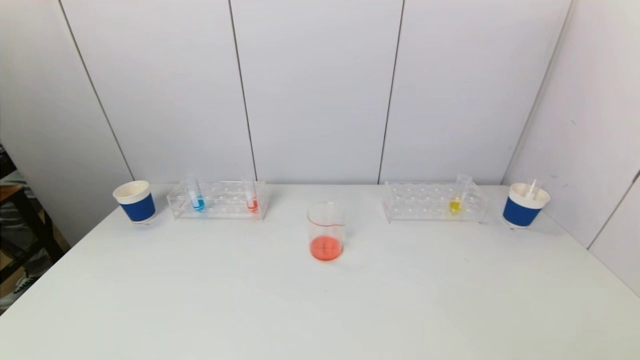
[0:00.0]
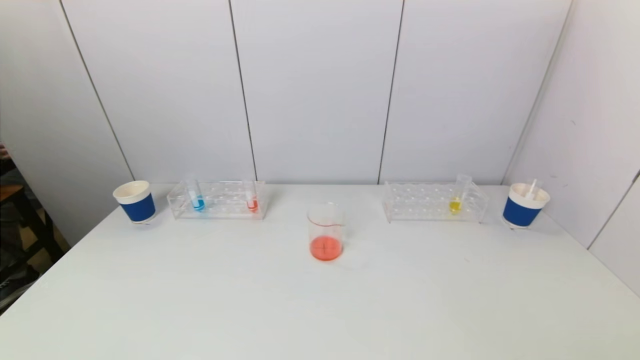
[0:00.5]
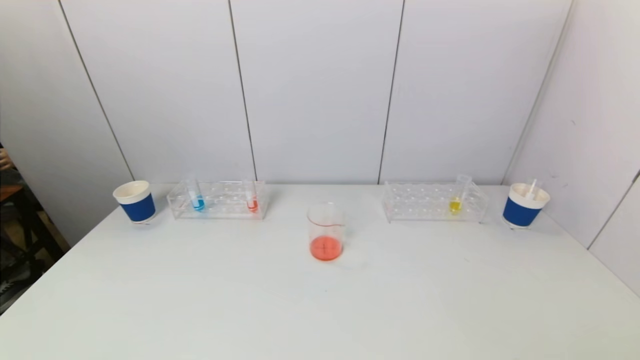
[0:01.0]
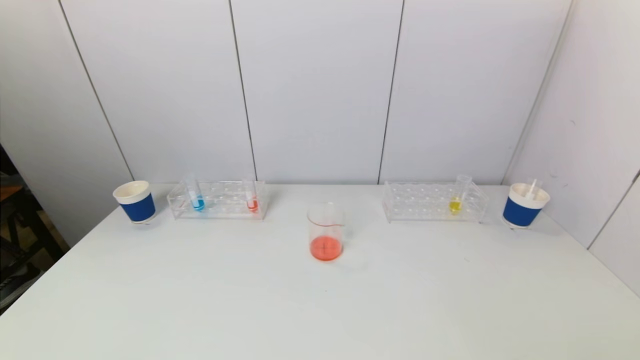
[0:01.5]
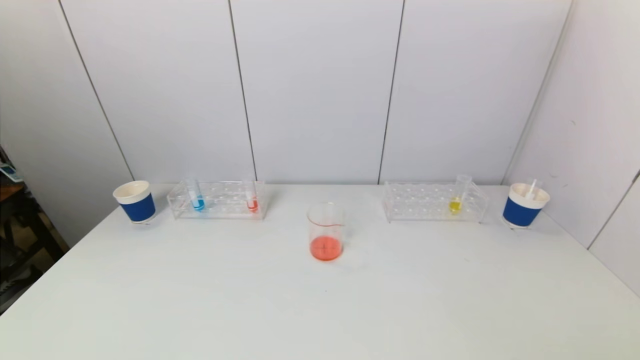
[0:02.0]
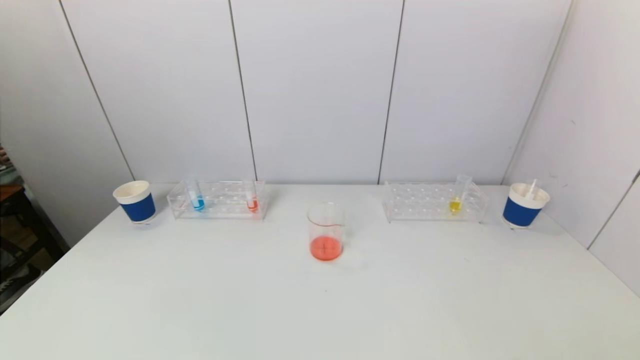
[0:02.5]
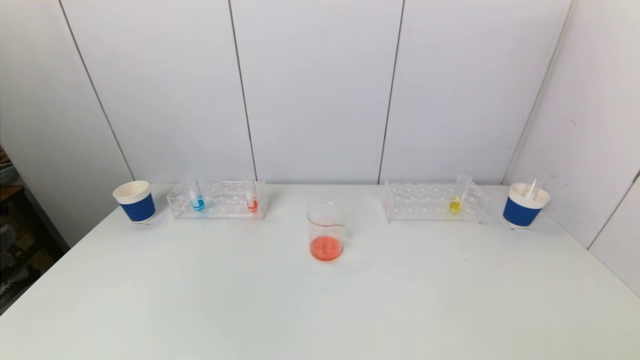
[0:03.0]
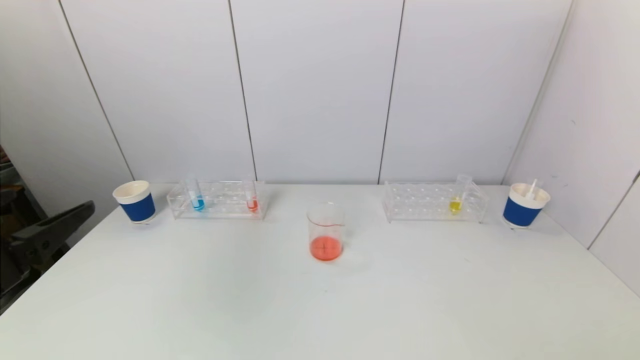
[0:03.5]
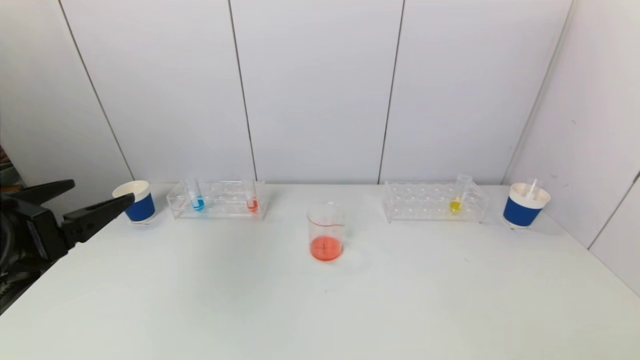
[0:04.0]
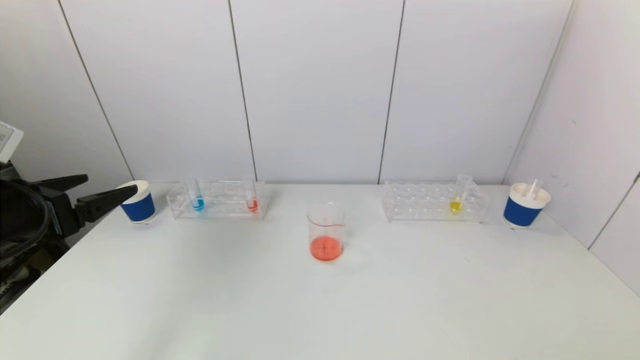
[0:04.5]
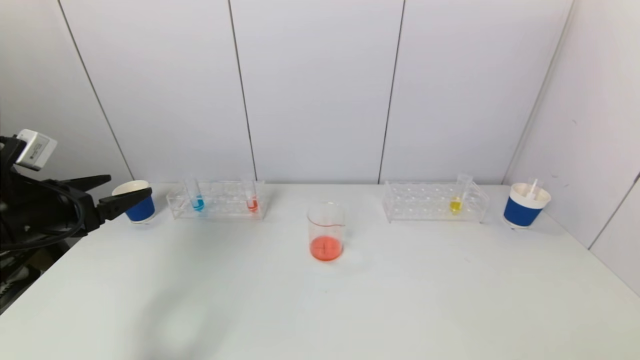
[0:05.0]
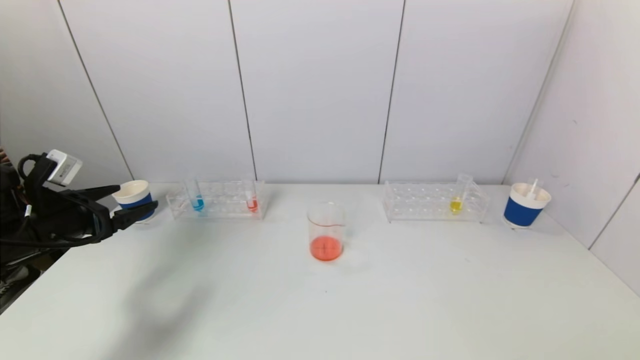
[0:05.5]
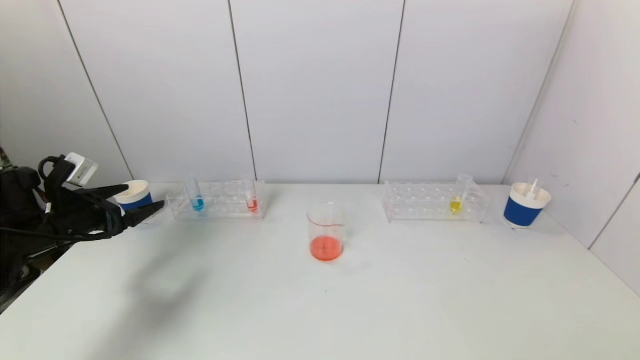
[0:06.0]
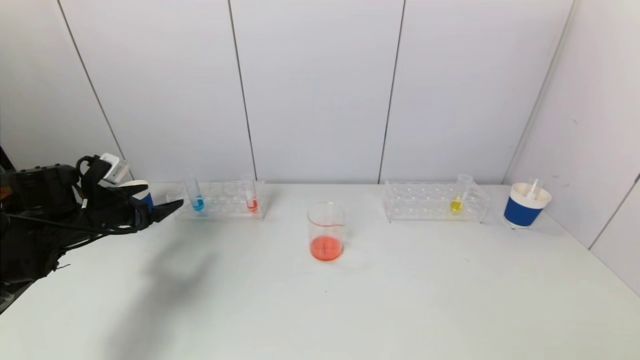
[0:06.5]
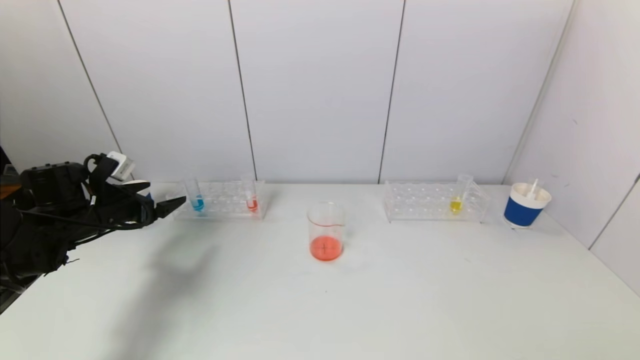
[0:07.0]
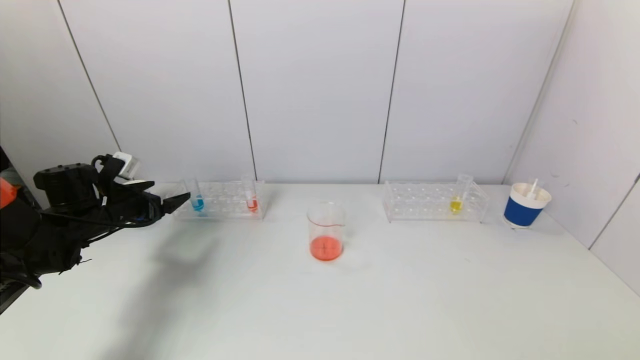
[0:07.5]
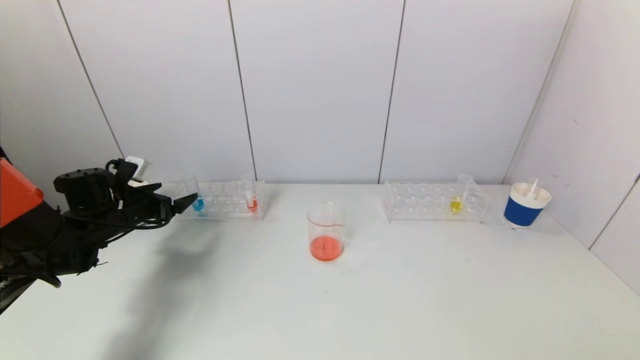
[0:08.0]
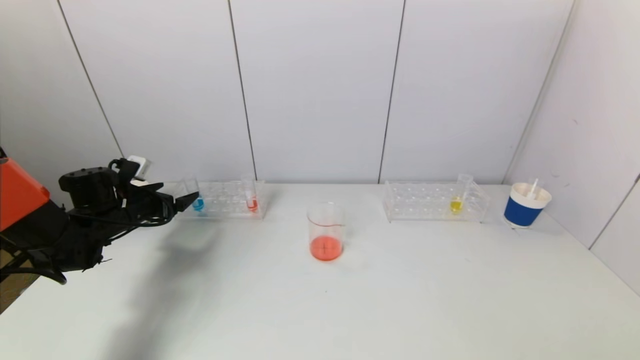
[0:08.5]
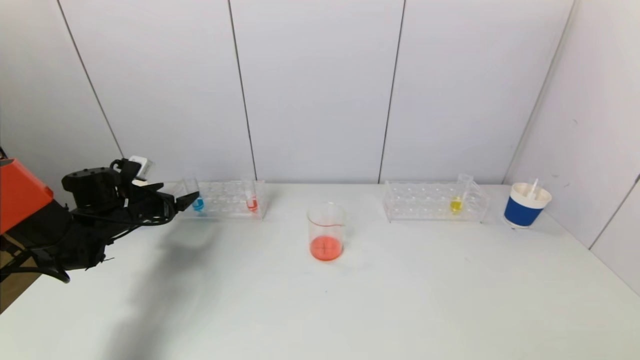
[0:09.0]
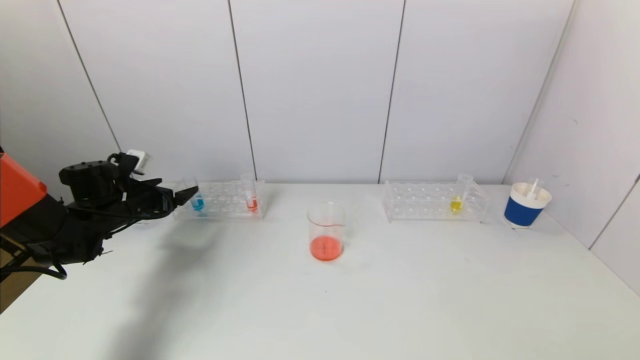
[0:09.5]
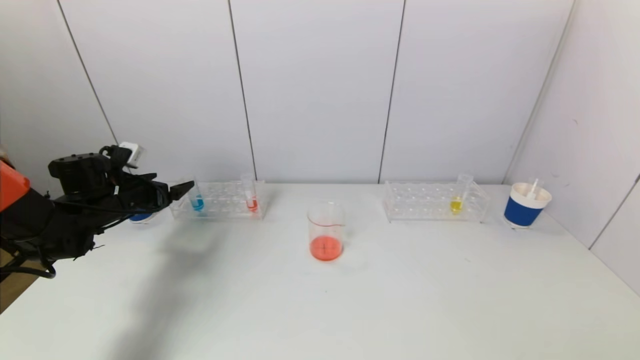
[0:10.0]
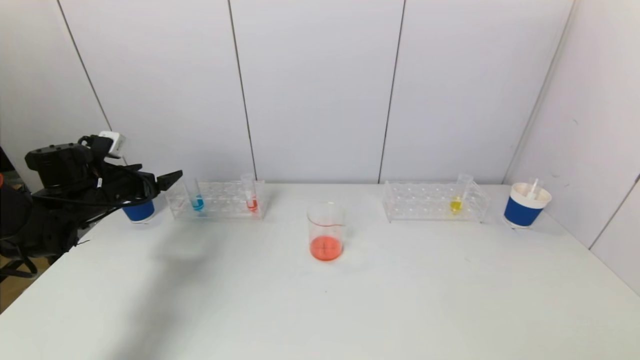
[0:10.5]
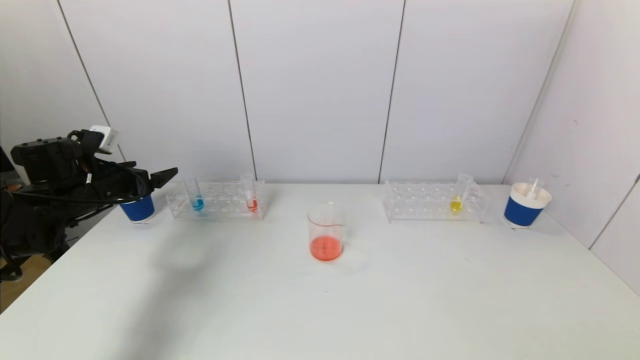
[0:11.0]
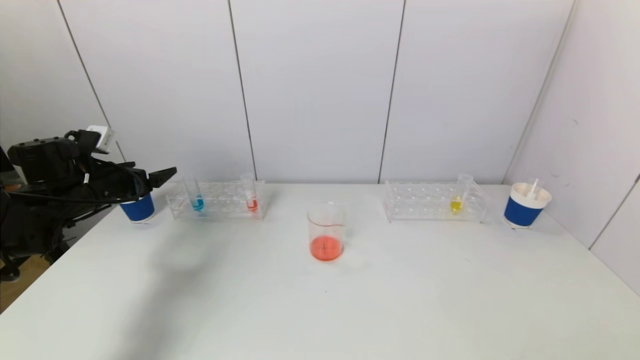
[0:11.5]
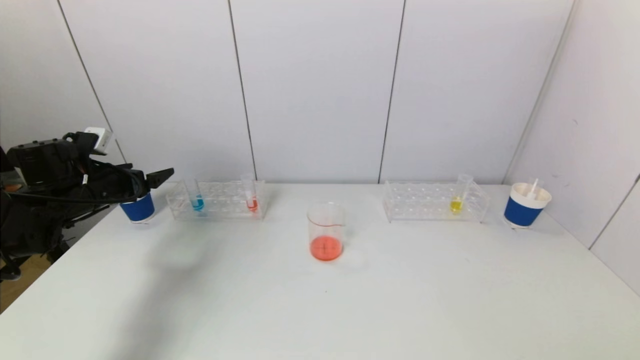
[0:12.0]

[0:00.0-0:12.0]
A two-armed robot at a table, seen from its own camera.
Task of the whole recording: pick up a test tube with pigment on left test tube rack and a test tube with pigment on right test tube rack by grippers and pour them into the beaker.
0:02.0 to 0:04.0: The left gripper shifts approximately 20 cm forward and upward.
0:04.0 to 0:06.0: The left gripper travels forward, downward and to the left by some 20 cm.
0:06.0 to 0:08.0: The left gripper travels forward by about 10 cm.
0:08.0 to 0:10.0: There are only small adjustments of the grippers.
0:10.0 to 0:12.0: There are only small adjustments of the grippers.

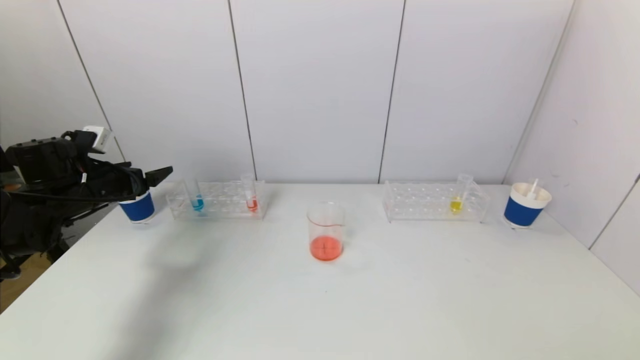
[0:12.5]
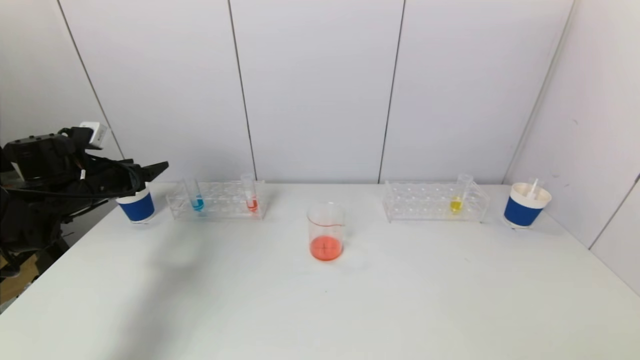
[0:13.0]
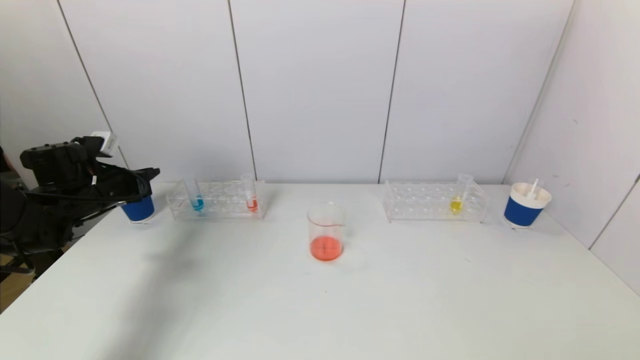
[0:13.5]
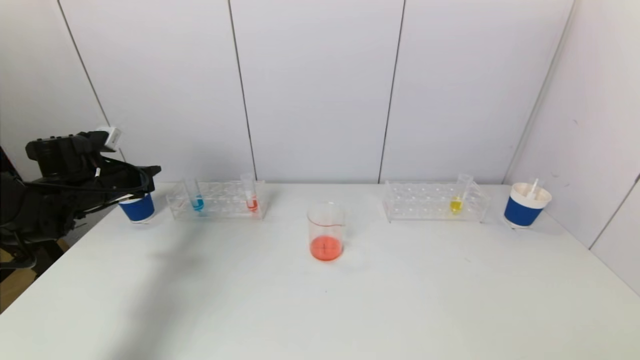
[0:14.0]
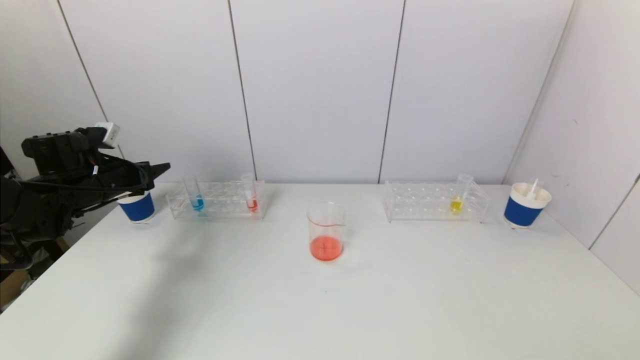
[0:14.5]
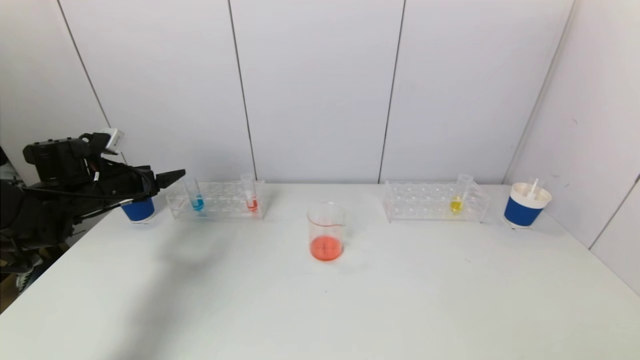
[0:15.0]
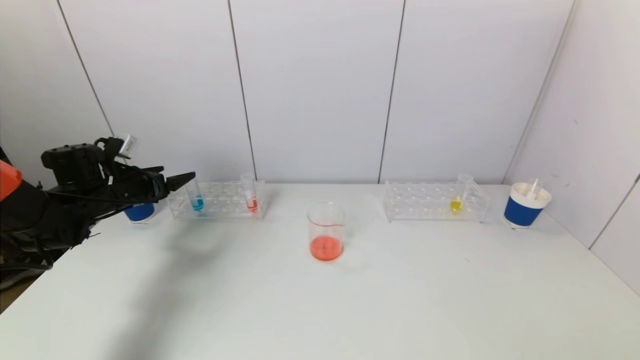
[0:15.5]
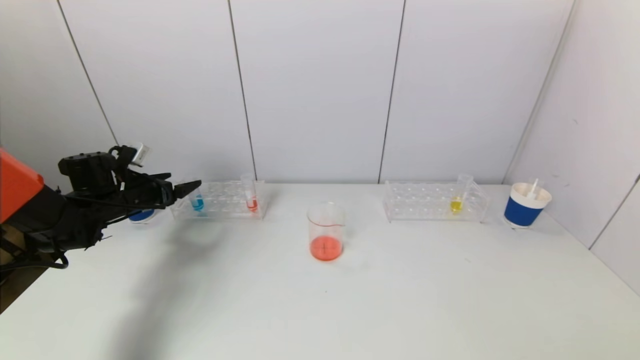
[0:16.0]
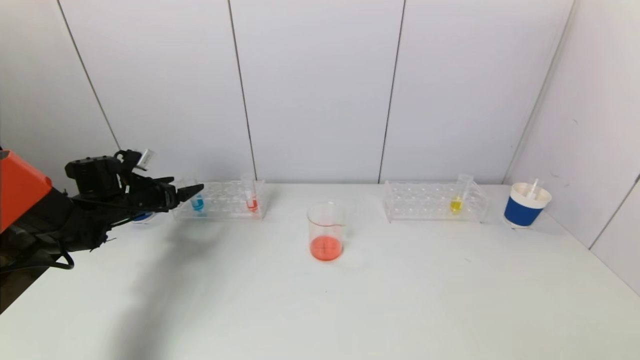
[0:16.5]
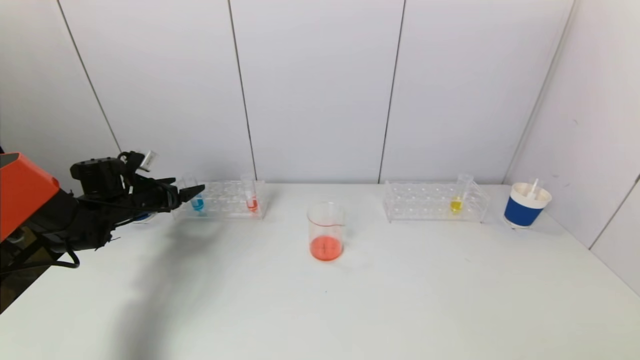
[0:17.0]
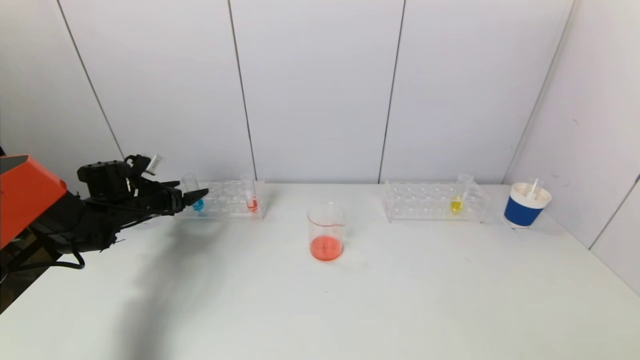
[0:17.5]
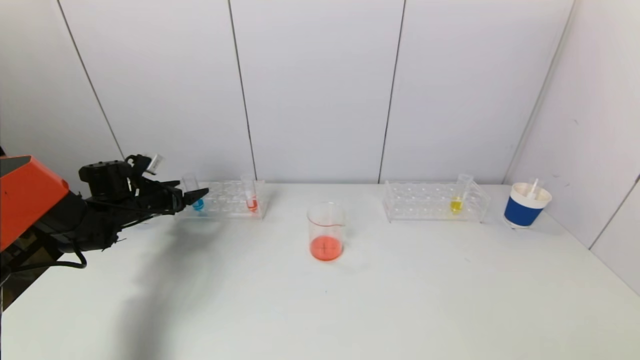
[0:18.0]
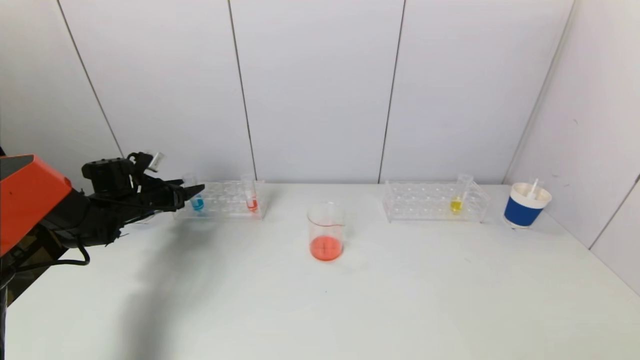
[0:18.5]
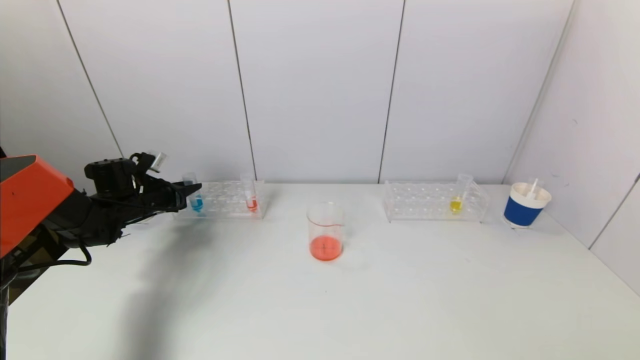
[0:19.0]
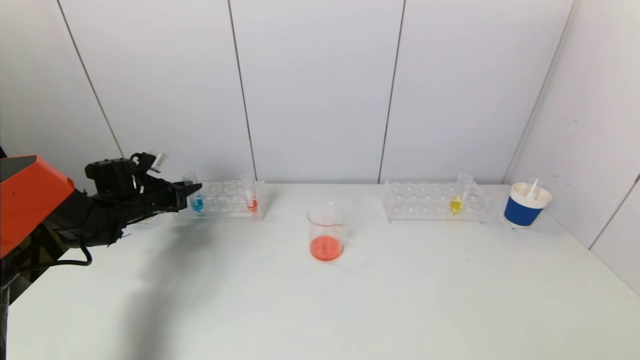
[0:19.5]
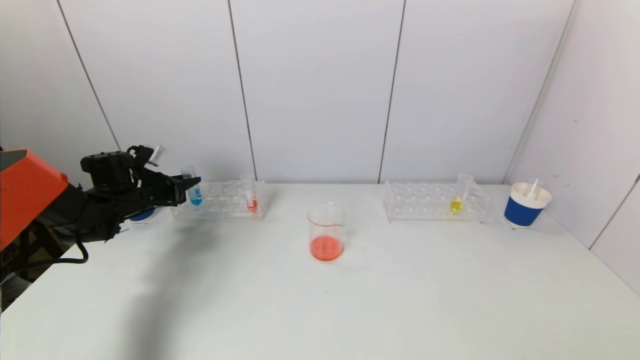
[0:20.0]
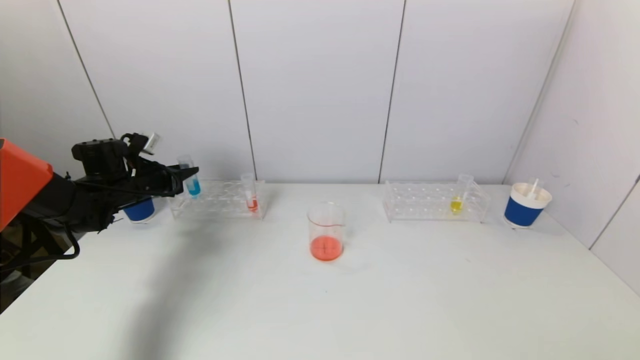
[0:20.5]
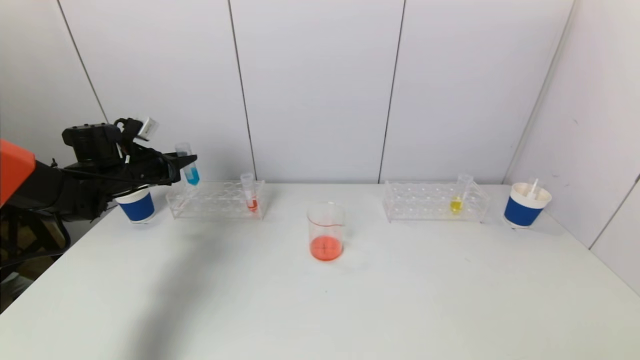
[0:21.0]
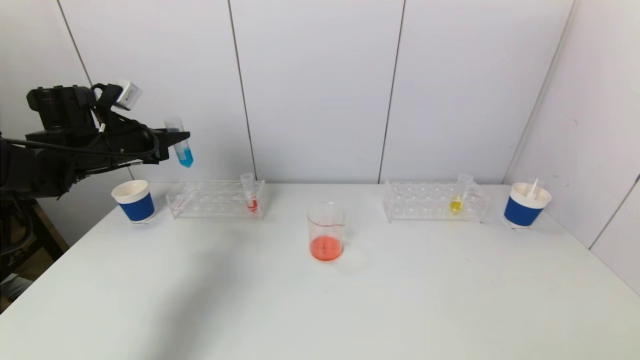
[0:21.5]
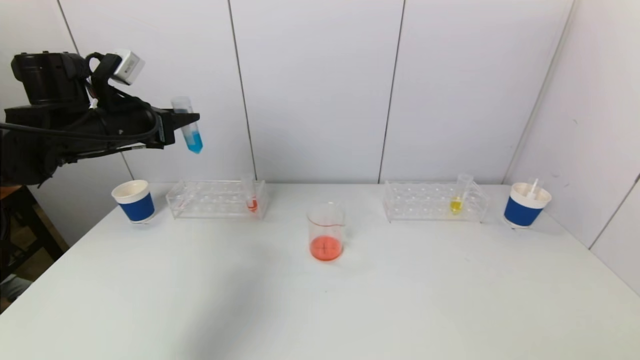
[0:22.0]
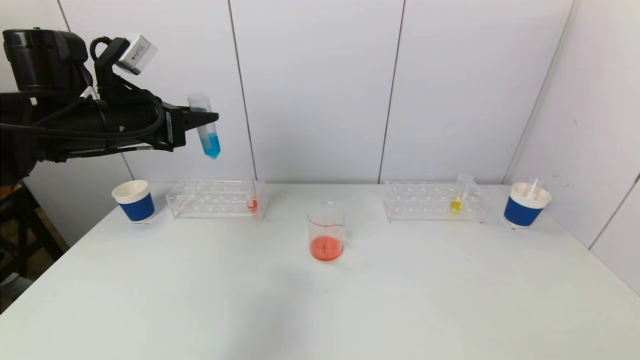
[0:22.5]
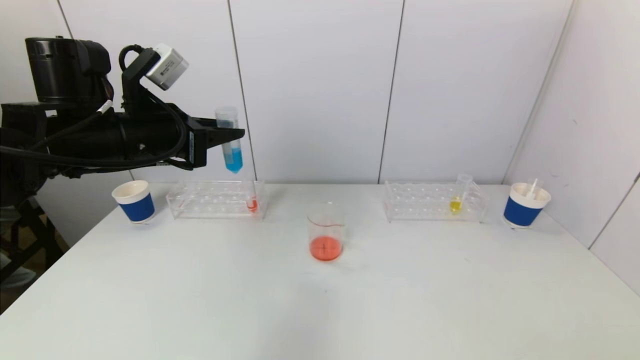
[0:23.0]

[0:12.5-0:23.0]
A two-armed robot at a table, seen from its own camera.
Task of the whole recording: pick up a test tube with pigment on left test tube rack and a test tube with pigment on right test tube rack by grippers and pour them into the beaker.
Step, 0:12.5 to 0:19.0: Grasp the blue reagent with the left gripper.
0:12.5 to 0:14.5: The left gripper closes its fingers.
0:14.5 to 0:16.5: The left gripper is displaced downward by about 5 cm, and opens up.
0:16.5 to 0:19.0: The left gripper closes its fingers.
0:19.0 to 0:21.0: The left gripper is displaced upward by about 10 cm.
0:21.0 to 0:23.0: The left gripper moves to the right, backward and upward, roughly 20 cm.
